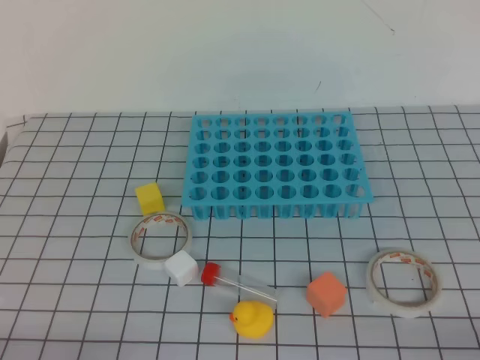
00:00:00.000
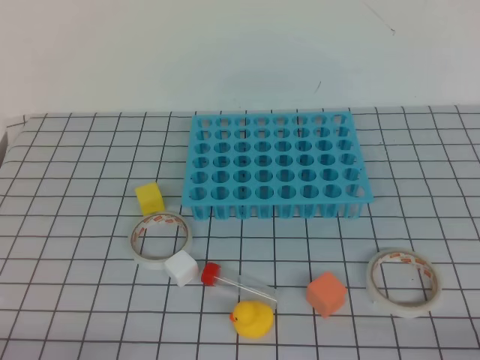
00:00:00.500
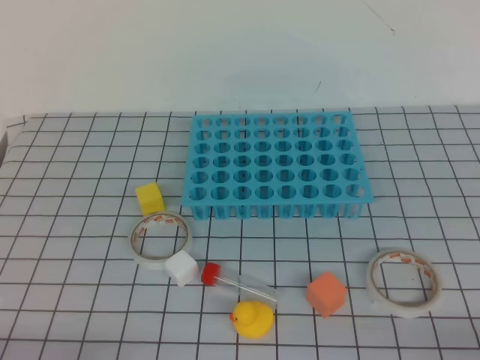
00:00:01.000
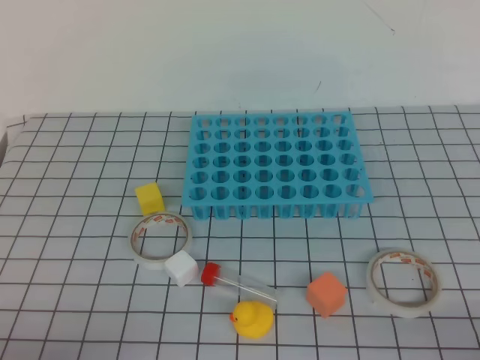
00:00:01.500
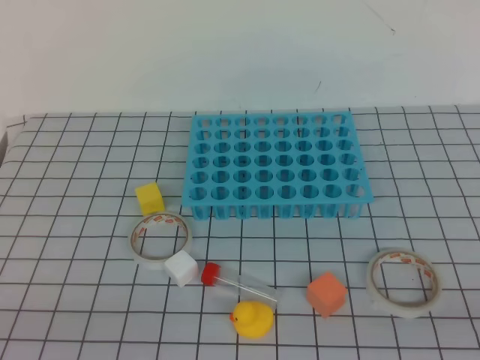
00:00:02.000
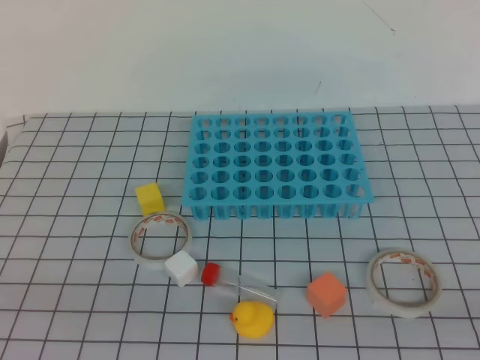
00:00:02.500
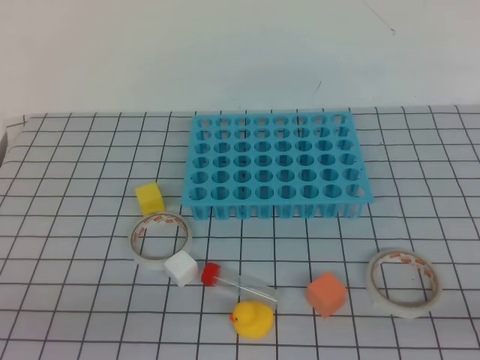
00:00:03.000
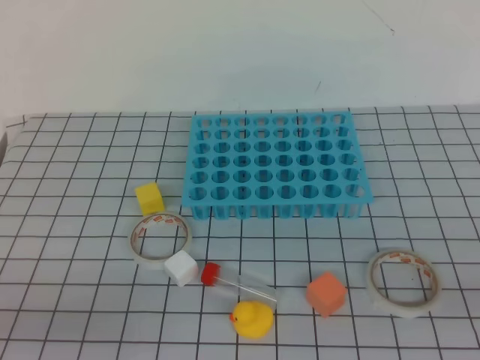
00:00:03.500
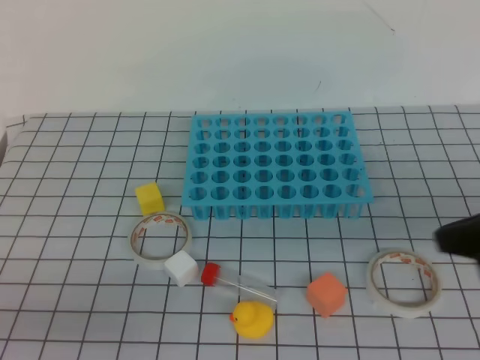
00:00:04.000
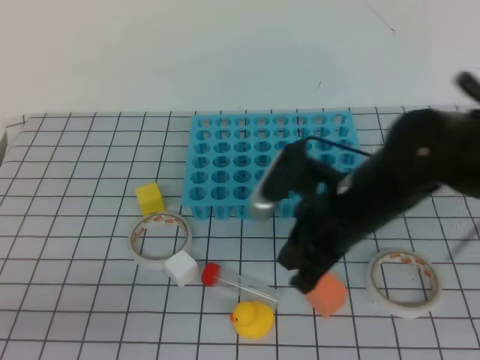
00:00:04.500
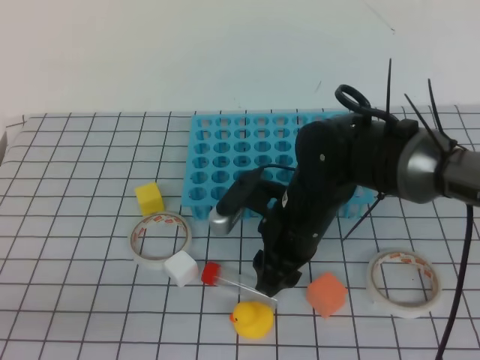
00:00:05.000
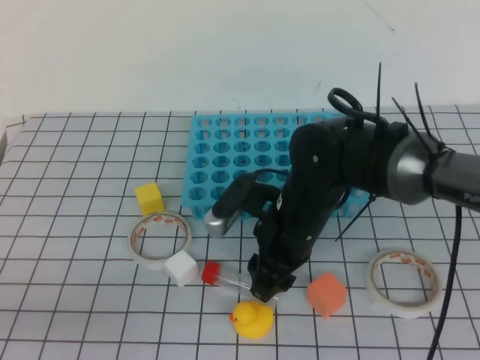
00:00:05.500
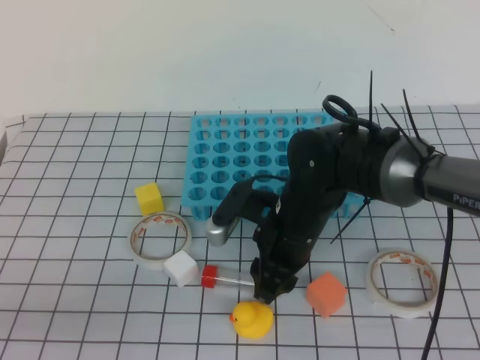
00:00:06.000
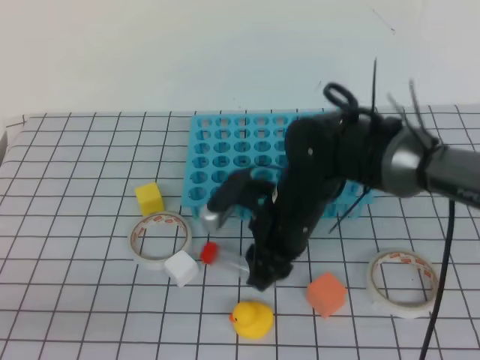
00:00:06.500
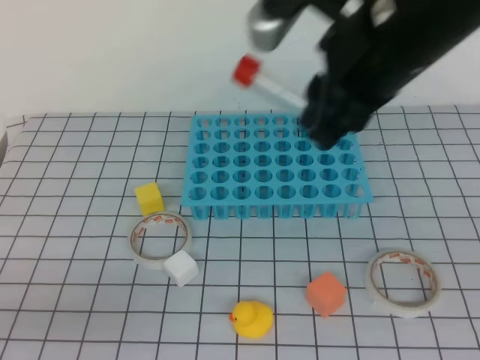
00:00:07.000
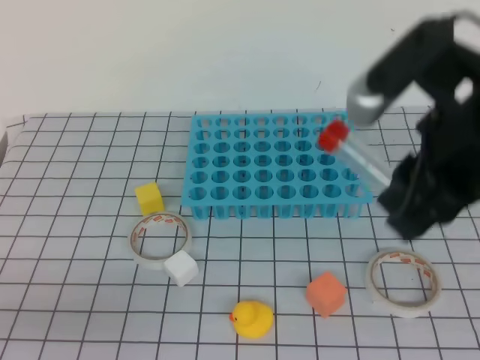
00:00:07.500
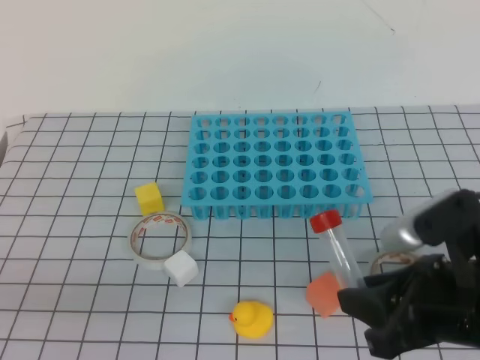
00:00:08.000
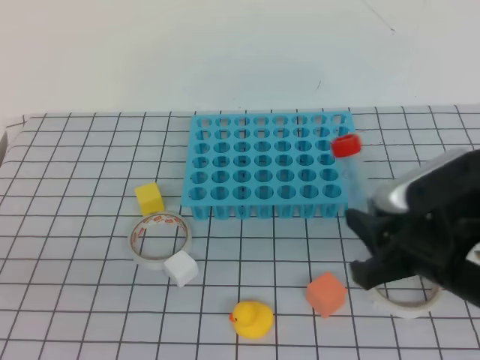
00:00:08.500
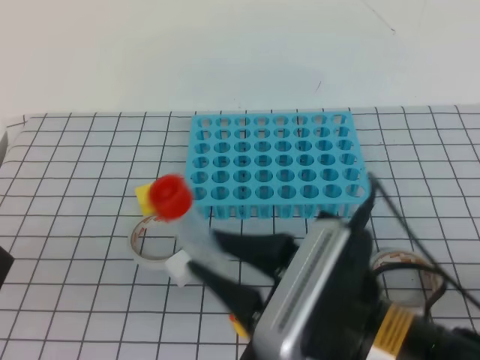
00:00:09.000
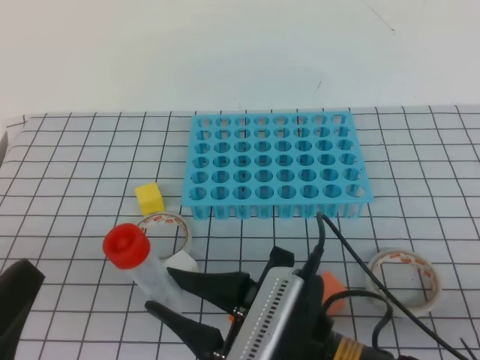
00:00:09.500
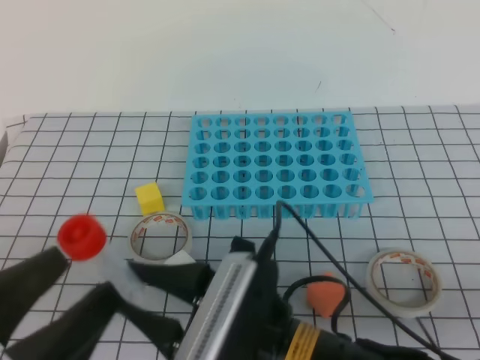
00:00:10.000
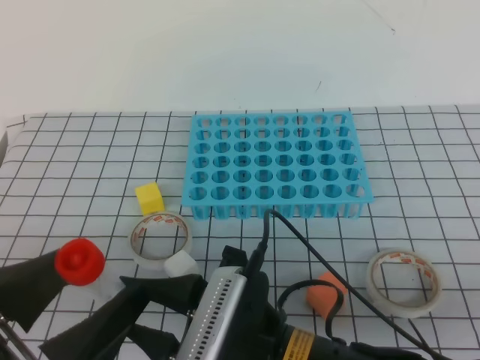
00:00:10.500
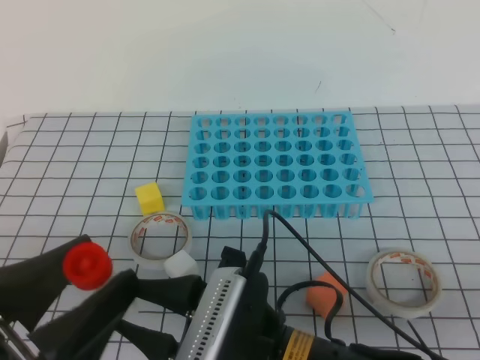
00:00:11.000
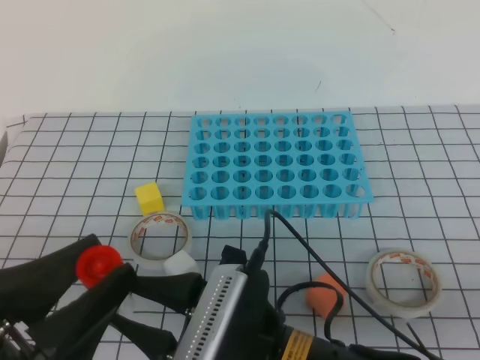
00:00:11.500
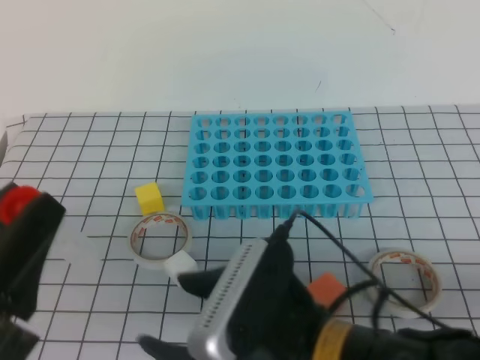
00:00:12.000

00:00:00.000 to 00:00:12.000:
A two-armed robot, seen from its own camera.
00:00:02.000 to 00:00:04.000: The right gripper is displaced forward and to the left by roughly 20 cm.
00:00:04.000 to 00:00:06.000: The right gripper heads to the left, downward and forward, covering some 30 cm, and opens up.
00:00:06.000 to 00:00:08.000: The right gripper travels backward, to the right and upward by some 20 cm.
00:00:08.000 to 00:00:10.000: The left gripper moves to the right, approximately 5 cm, and opens its fingers. The right gripper moves to the left, about 15 cm.
00:00:10.000 to 00:00:12.000: The left gripper closes its fingers.

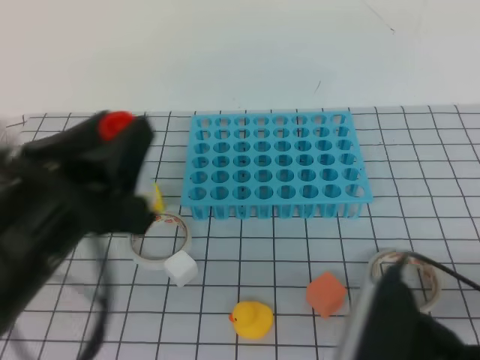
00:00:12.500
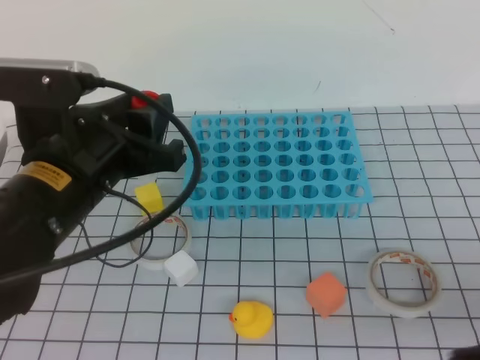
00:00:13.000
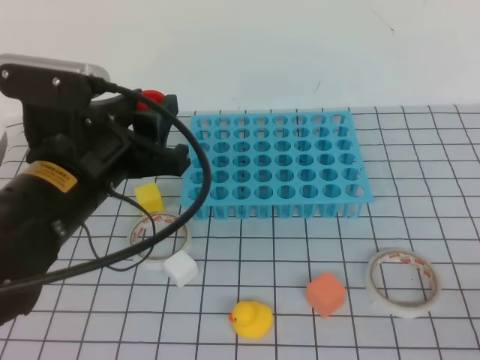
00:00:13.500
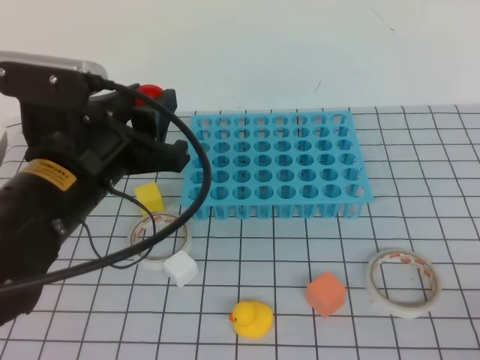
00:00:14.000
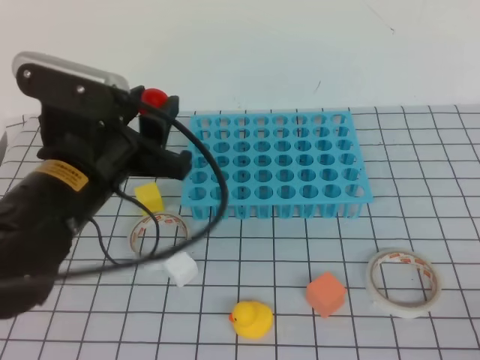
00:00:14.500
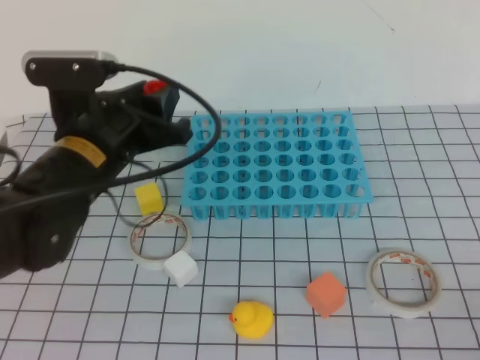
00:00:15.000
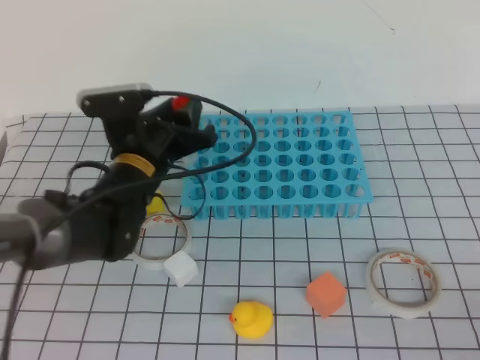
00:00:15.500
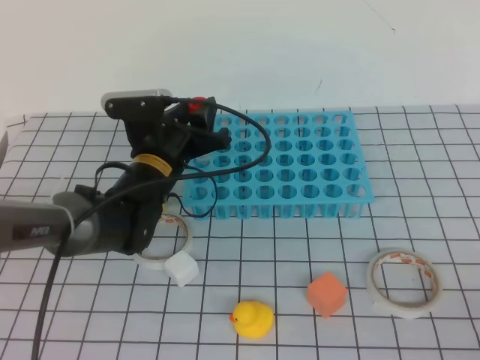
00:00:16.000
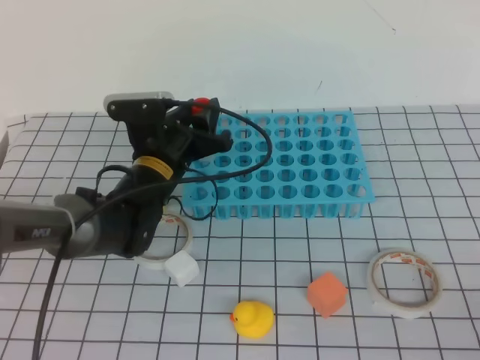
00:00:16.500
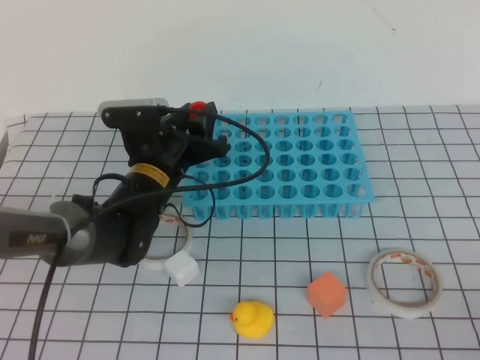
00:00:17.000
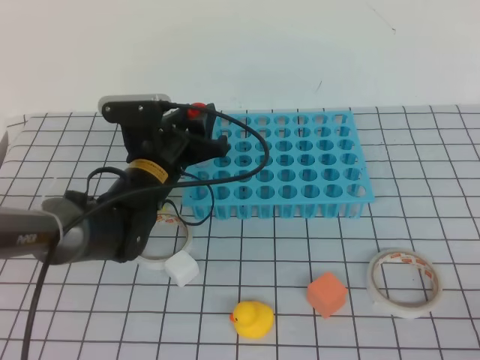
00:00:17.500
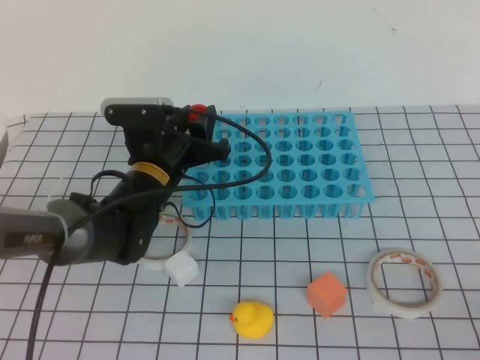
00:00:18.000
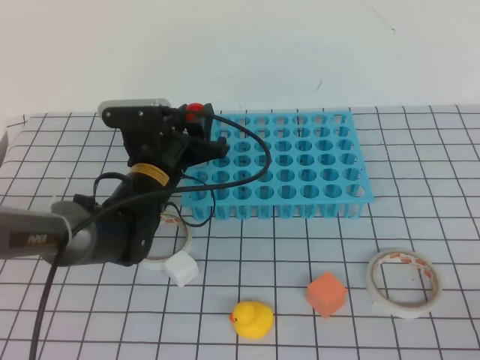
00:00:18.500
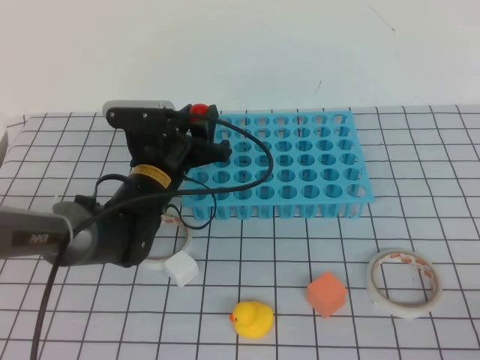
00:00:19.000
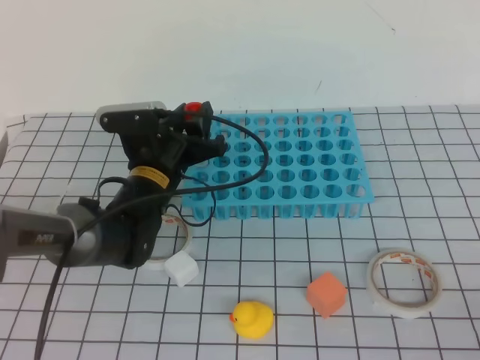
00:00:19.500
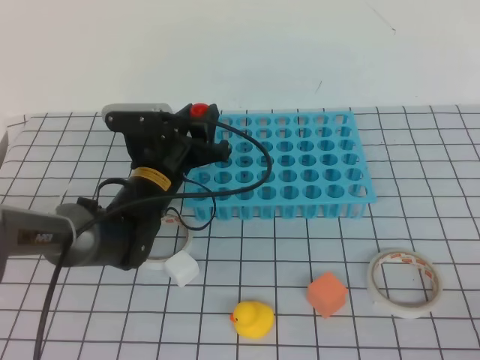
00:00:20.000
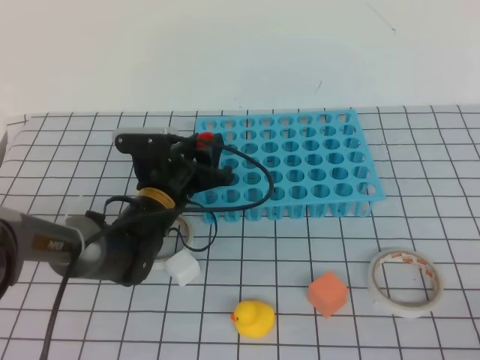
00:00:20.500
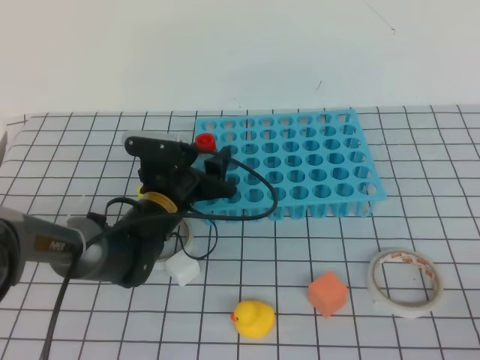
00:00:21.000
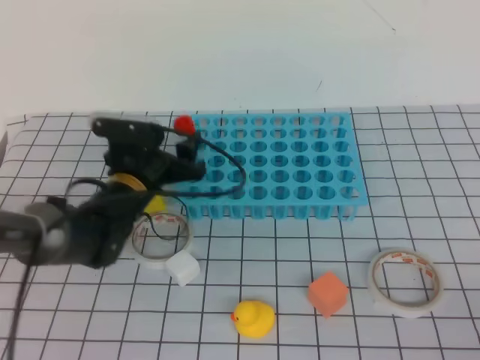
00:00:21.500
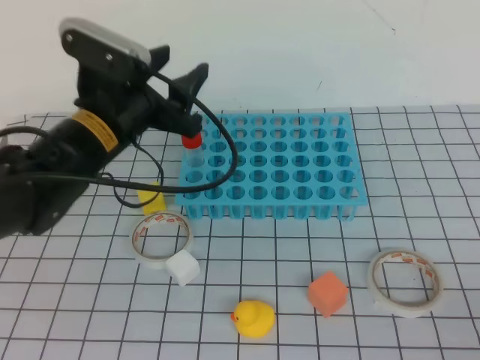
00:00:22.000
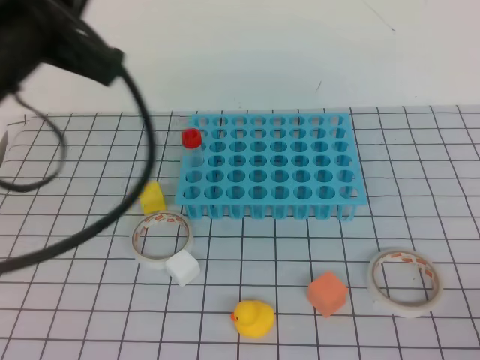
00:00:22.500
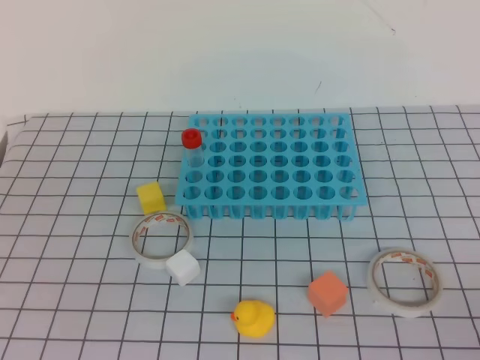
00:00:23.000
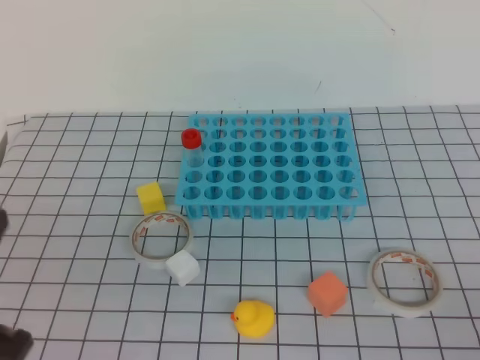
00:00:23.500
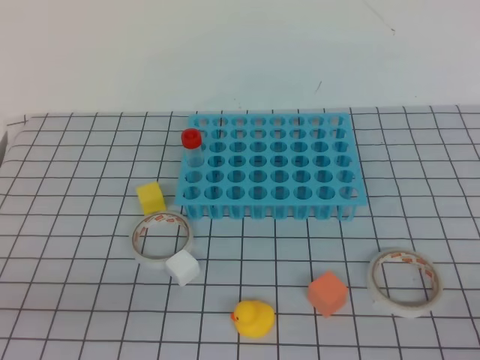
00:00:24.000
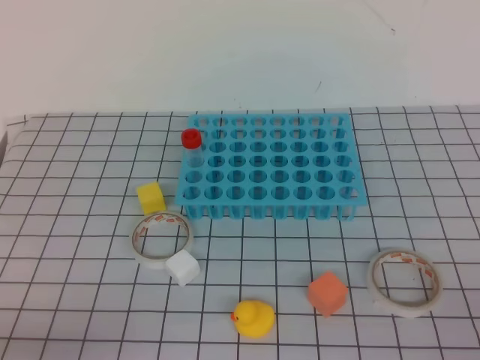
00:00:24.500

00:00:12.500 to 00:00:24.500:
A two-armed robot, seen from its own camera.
00:00:12.500 to 00:00:14.500: The left gripper moves forward, about 10 cm; the right gripper shifts some 20 cm to the right.
00:00:14.500 to 00:00:16.500: The left gripper goes approximately 20 cm forward and downward.
00:00:16.500 to 00:00:18.500: The two grippers keep their place.
00:00:18.500 to 00:00:20.500: There are only small adjustments of the grippers.
00:00:20.500 to 00:00:22.500: The left gripper goes roughly 30 cm upward and backward, and closes.
00:00:22.500 to 00:00:24.500: The left gripper heads backward, downward and to the left, covering some 30 cm.

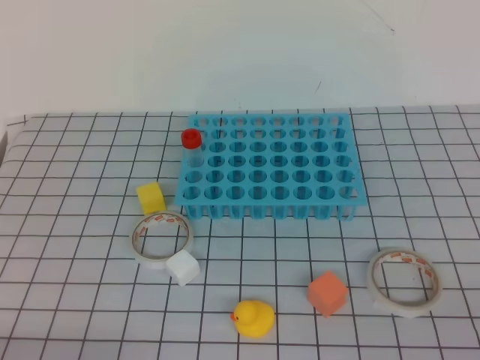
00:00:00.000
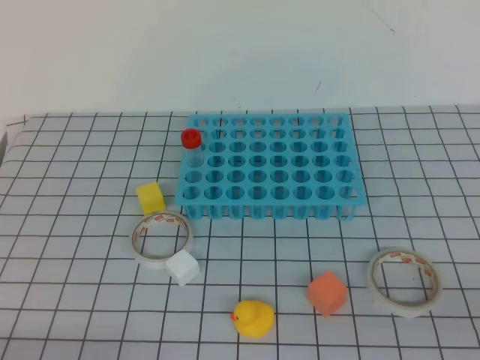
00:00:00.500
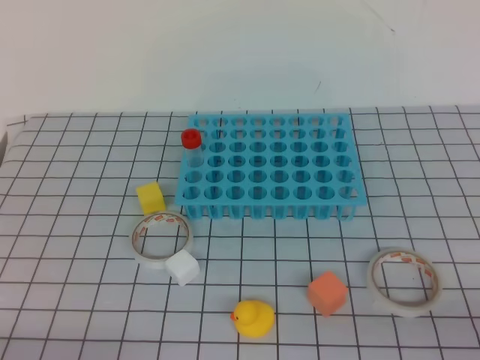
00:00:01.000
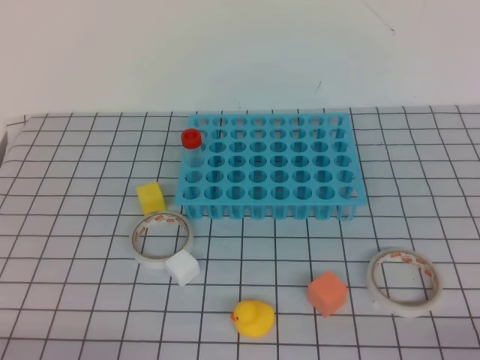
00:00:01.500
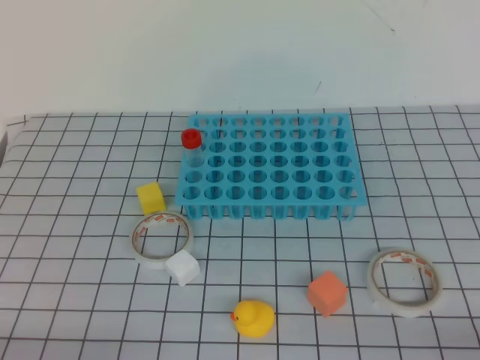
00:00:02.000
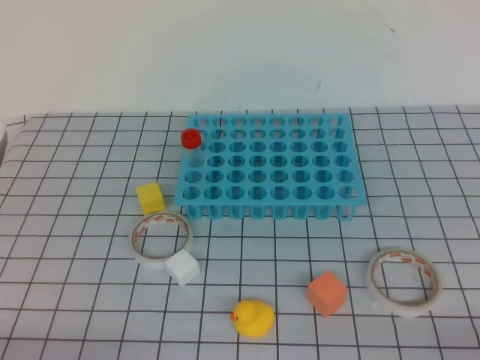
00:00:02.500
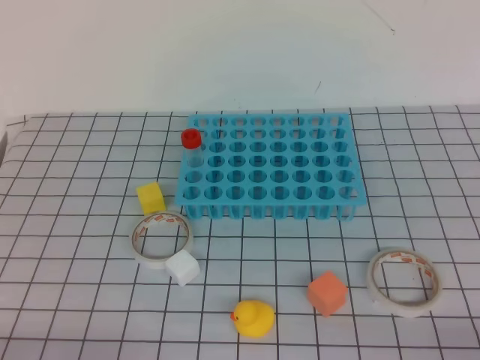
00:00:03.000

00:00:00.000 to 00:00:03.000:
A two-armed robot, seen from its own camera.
00:00:01.500 to 00:00:03.000: Neither gripper changes place.
